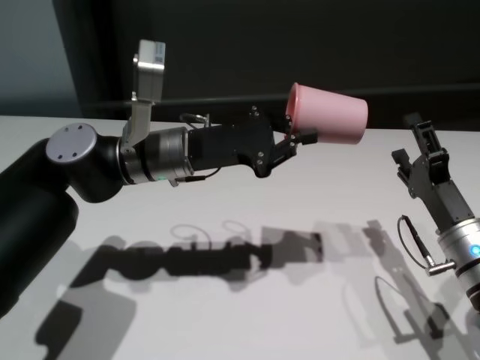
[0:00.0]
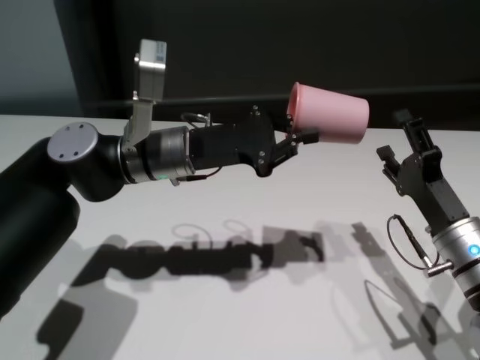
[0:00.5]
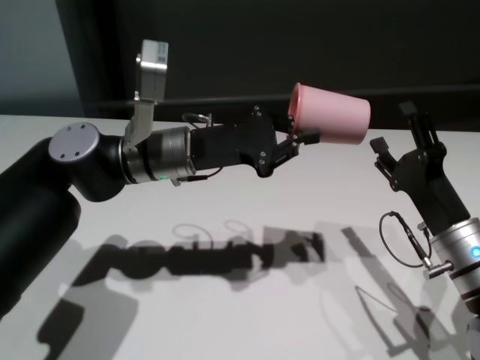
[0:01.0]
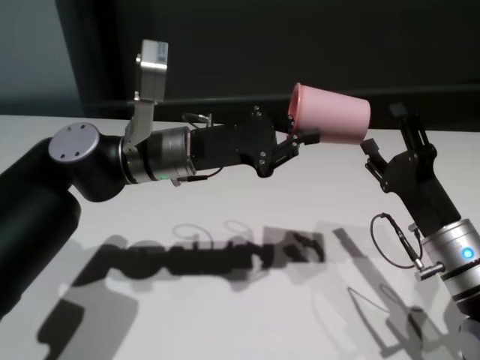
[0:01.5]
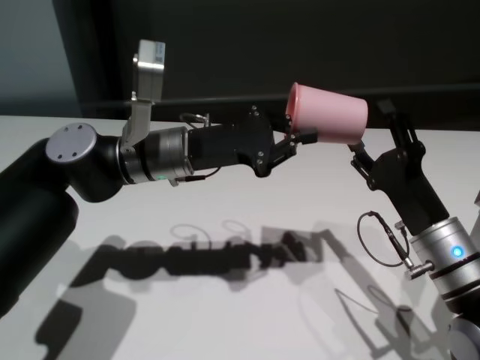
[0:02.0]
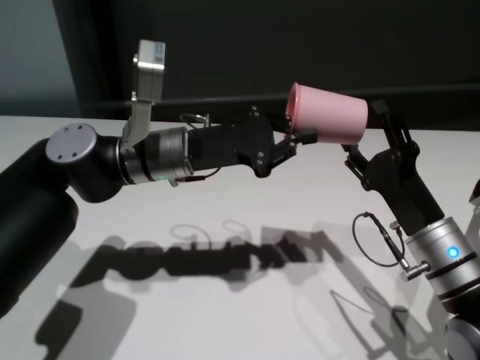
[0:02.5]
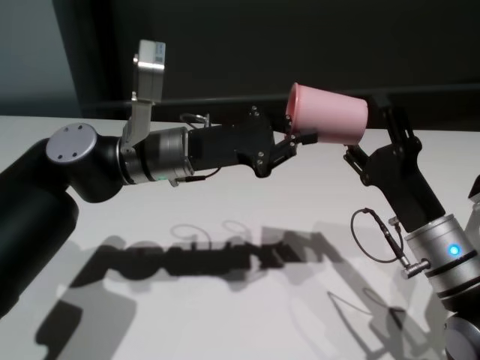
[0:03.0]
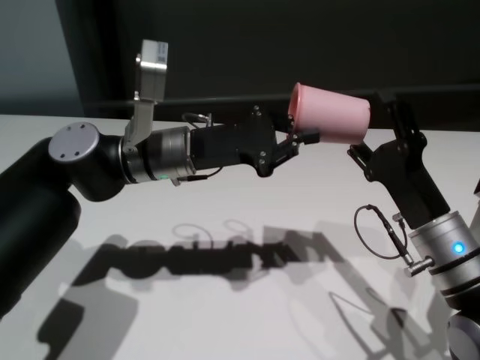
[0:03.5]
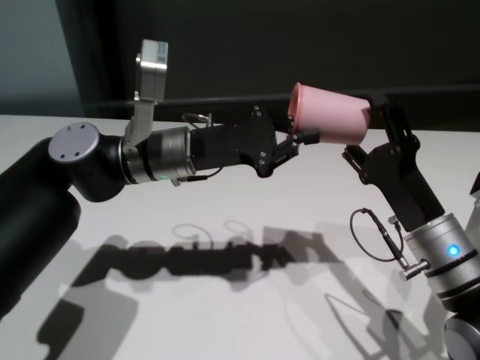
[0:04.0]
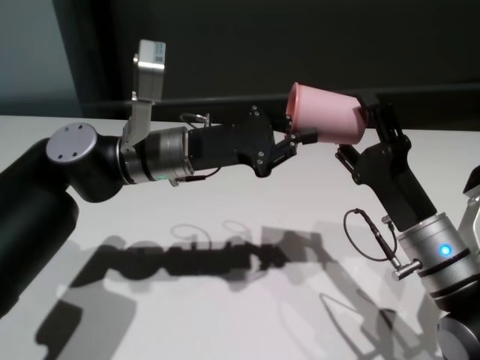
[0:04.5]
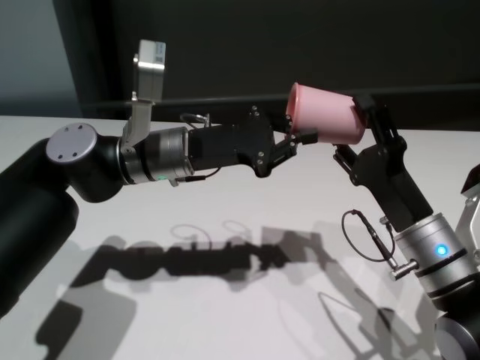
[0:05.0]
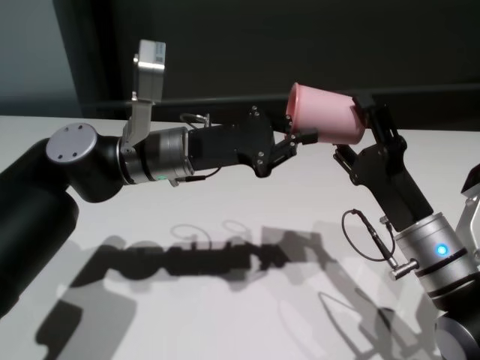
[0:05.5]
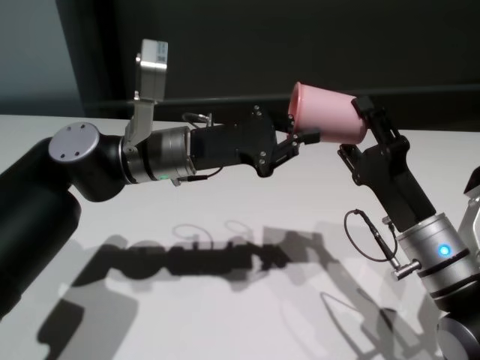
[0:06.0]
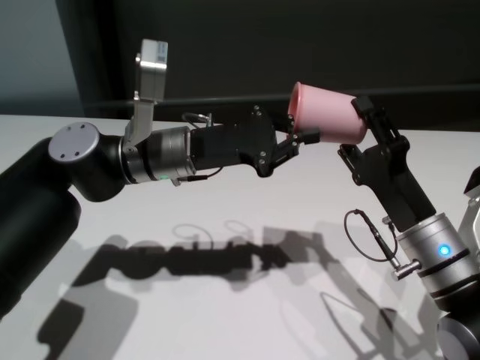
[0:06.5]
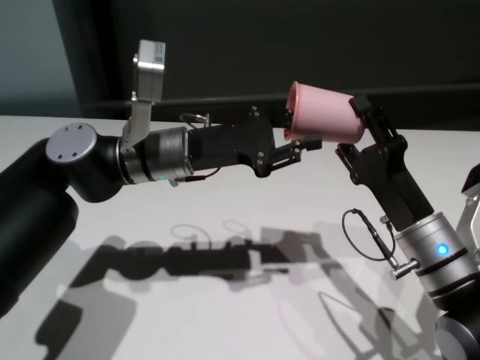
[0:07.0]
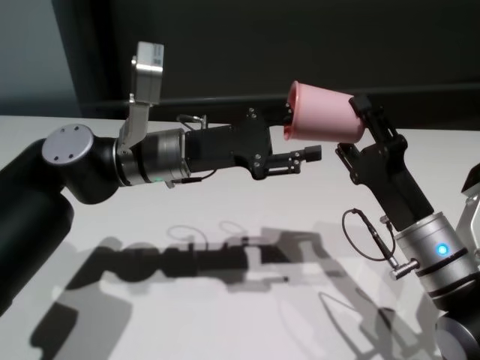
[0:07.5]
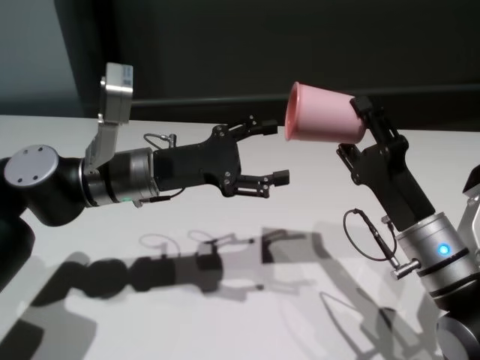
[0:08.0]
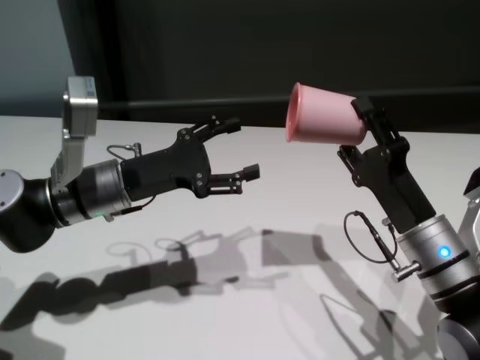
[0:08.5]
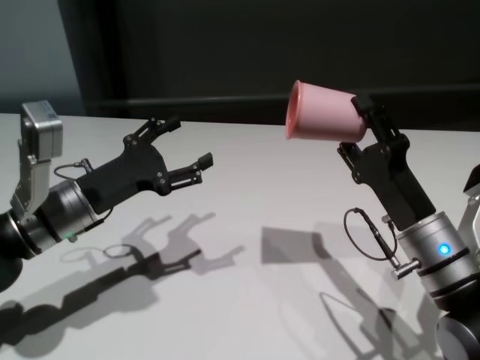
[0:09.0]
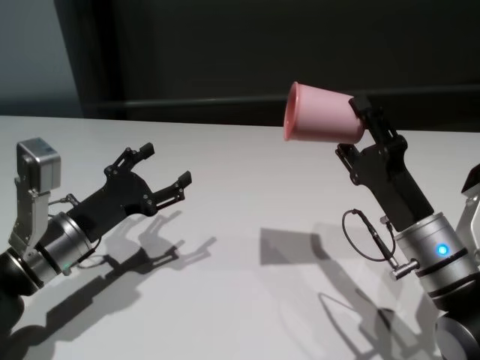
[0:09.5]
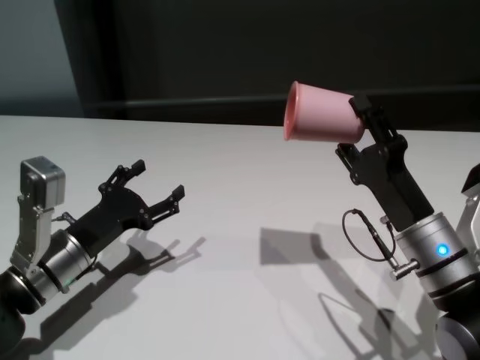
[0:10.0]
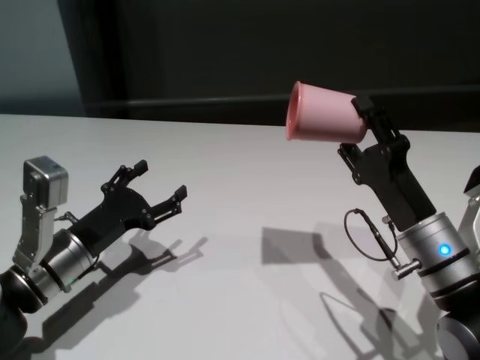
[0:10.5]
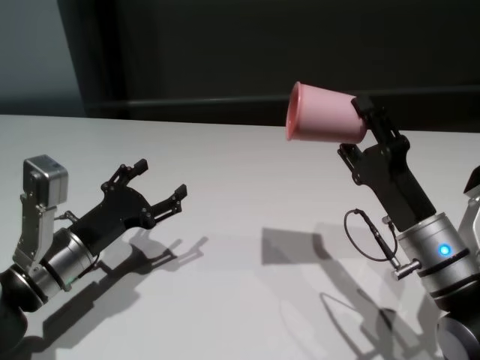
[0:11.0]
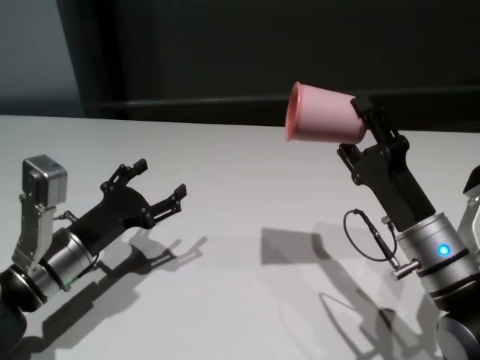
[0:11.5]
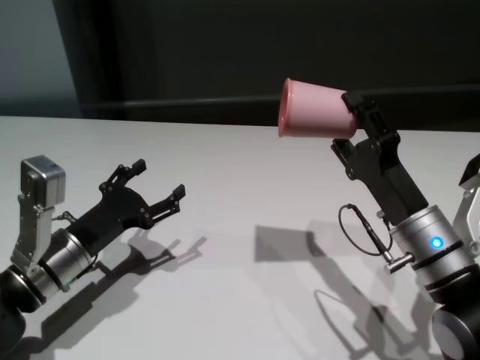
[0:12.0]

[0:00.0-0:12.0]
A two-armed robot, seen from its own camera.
Task of the whole recording: On the white table pick up the cup with one hand and transfer it to the other hand before turning it over.
Step, 0:00.0 to 0:07.5: Pass the cup to the right gripper.

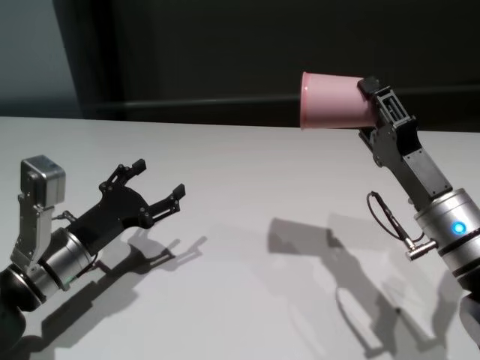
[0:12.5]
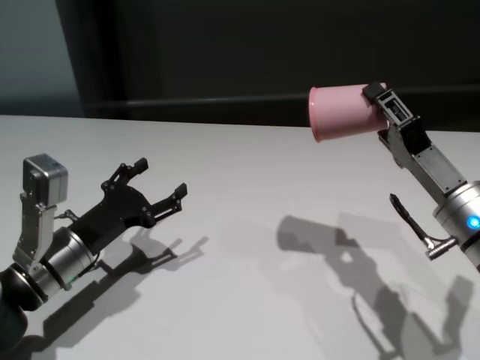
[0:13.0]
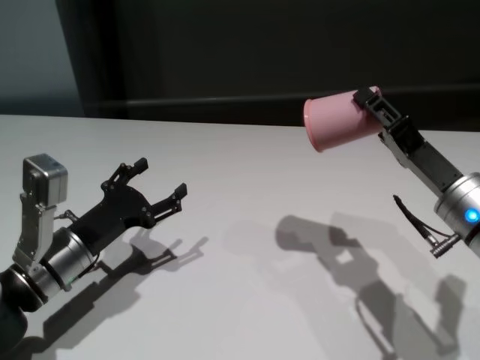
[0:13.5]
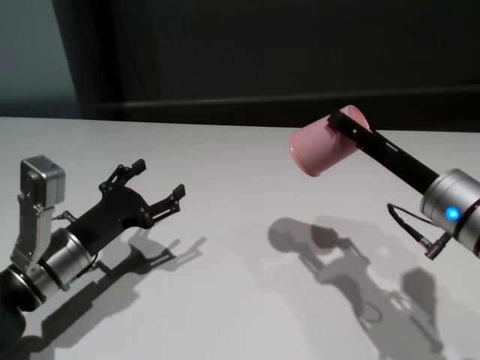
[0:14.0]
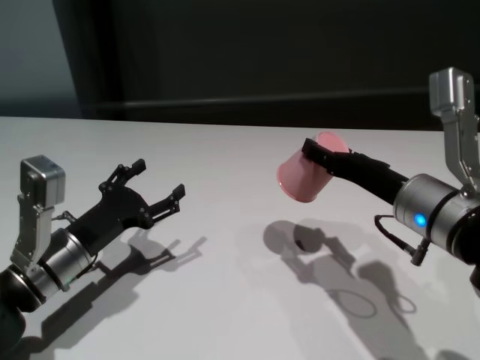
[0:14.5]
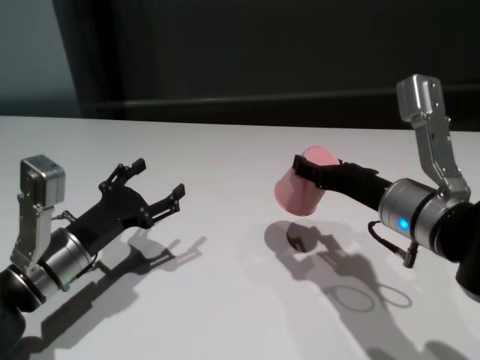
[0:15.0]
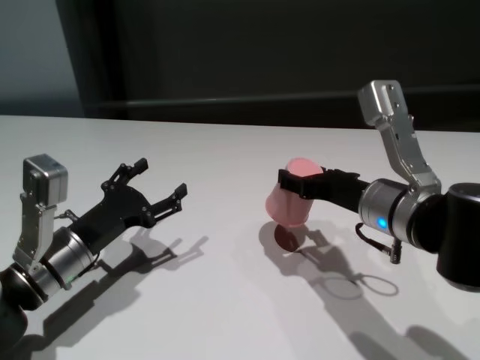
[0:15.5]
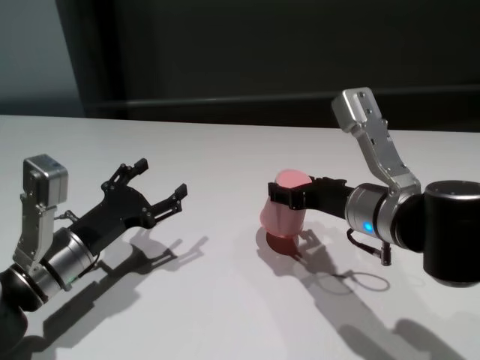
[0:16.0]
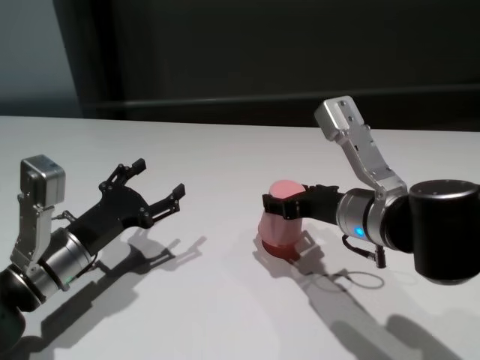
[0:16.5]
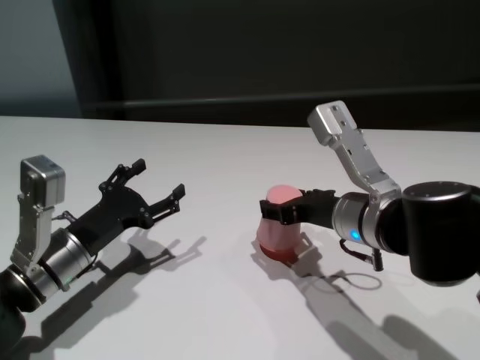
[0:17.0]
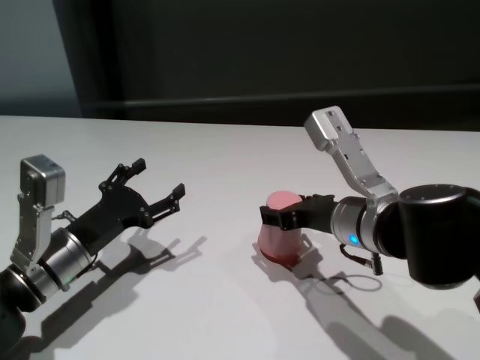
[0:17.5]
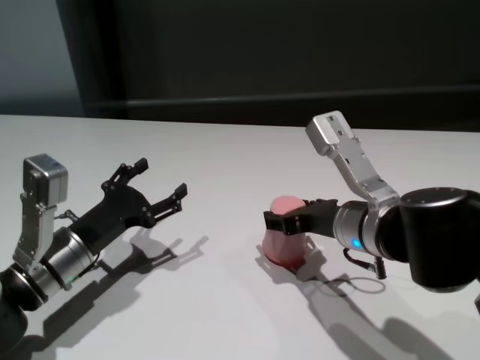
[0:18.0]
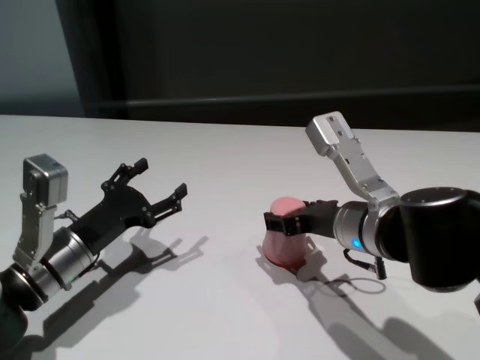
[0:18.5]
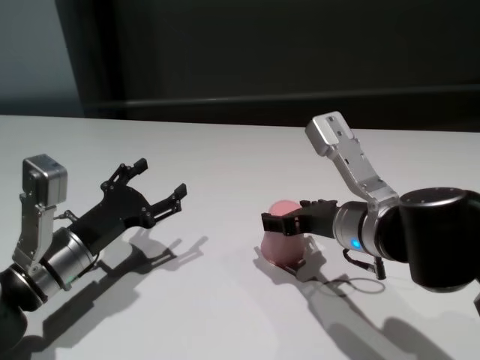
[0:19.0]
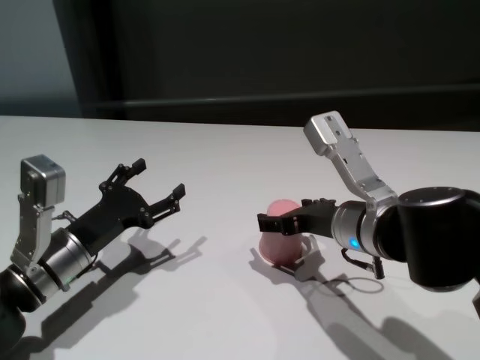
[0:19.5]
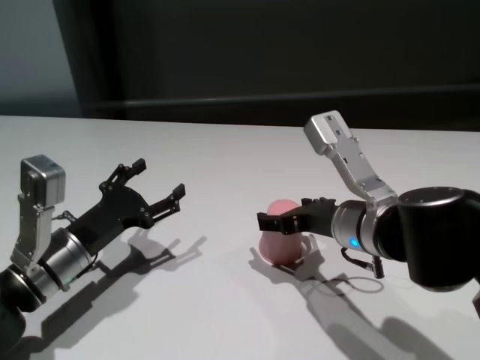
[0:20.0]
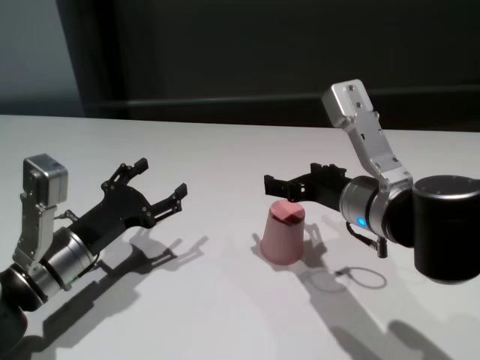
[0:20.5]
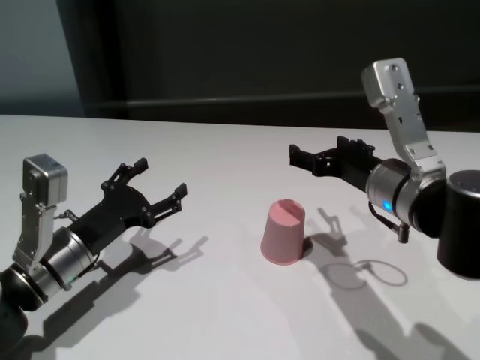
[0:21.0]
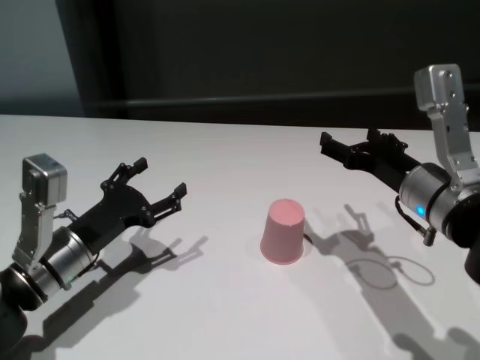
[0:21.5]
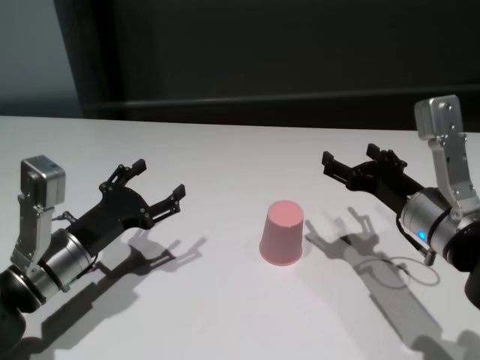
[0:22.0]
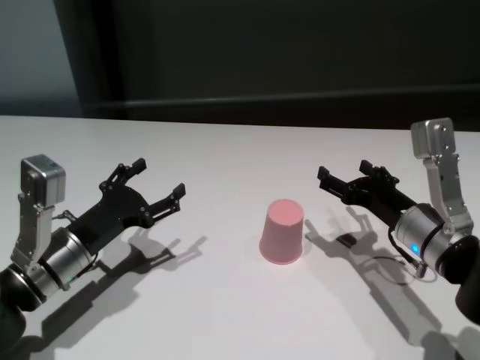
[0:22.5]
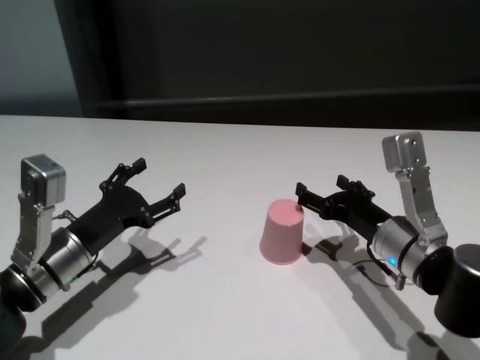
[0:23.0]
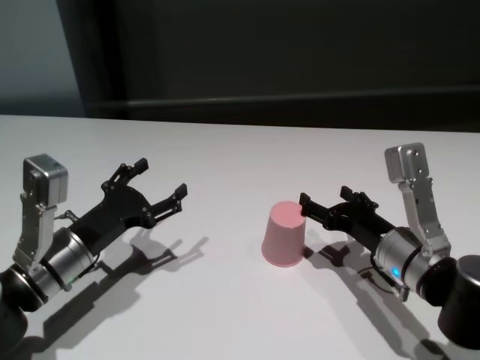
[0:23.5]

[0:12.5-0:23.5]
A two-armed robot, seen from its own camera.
Task of the whole recording: On the white table pick up the cup with one hand and transfer it to the other hand before turning it over.
Step, 0:12.5 to 0:19.5: Place the cup on the table with right gripper.
